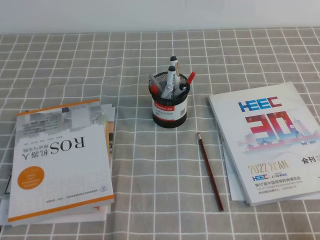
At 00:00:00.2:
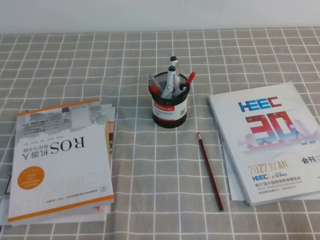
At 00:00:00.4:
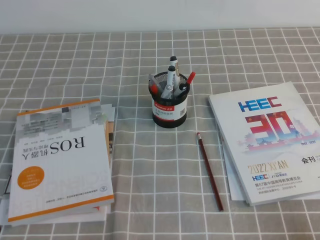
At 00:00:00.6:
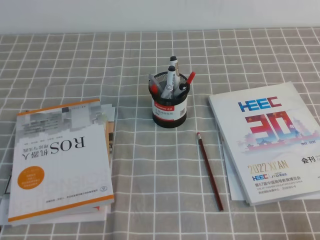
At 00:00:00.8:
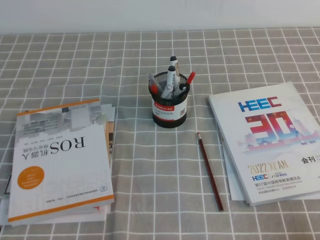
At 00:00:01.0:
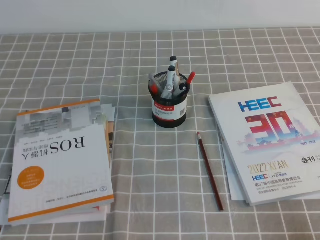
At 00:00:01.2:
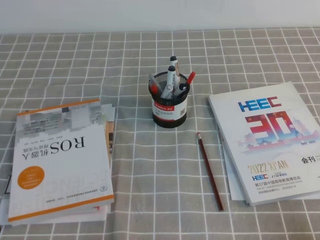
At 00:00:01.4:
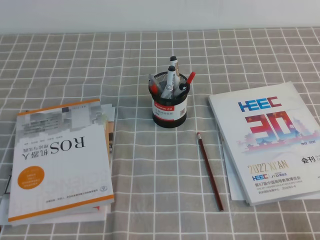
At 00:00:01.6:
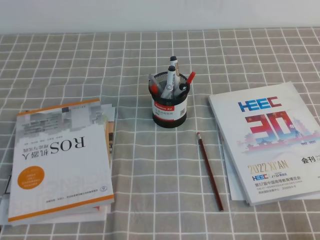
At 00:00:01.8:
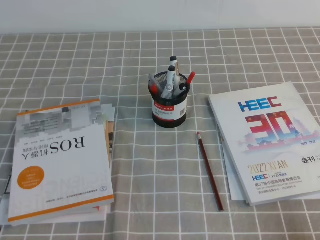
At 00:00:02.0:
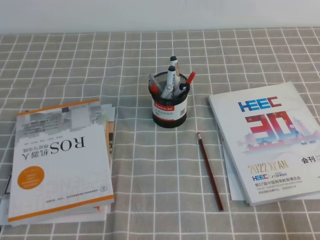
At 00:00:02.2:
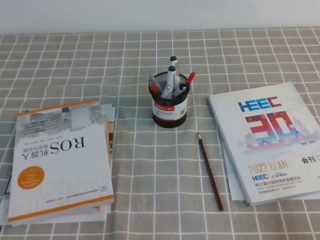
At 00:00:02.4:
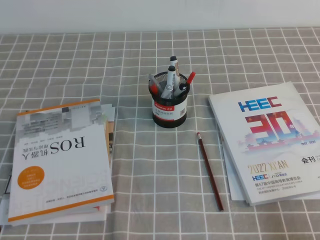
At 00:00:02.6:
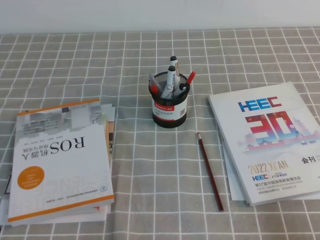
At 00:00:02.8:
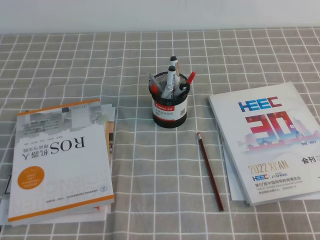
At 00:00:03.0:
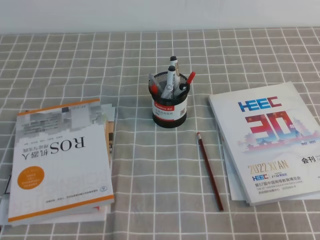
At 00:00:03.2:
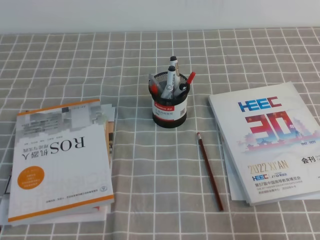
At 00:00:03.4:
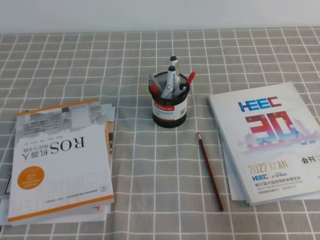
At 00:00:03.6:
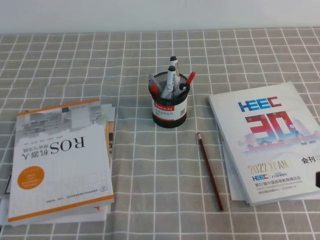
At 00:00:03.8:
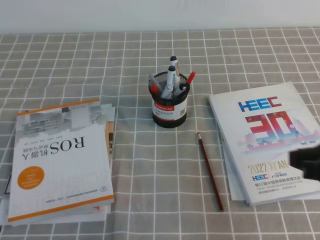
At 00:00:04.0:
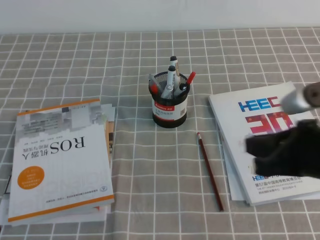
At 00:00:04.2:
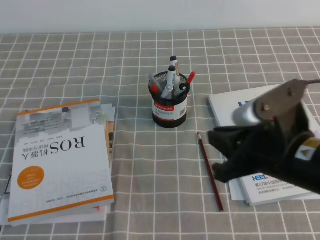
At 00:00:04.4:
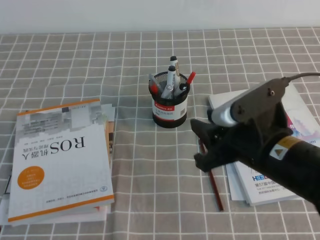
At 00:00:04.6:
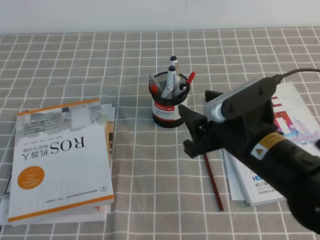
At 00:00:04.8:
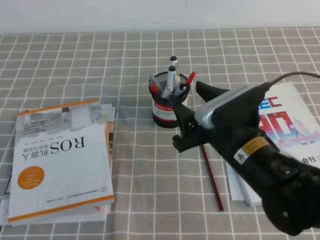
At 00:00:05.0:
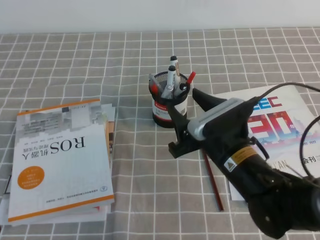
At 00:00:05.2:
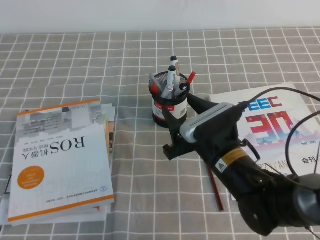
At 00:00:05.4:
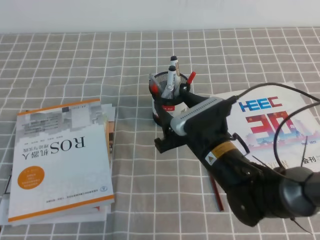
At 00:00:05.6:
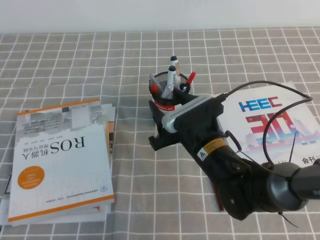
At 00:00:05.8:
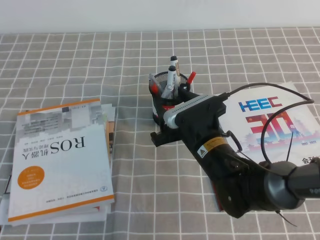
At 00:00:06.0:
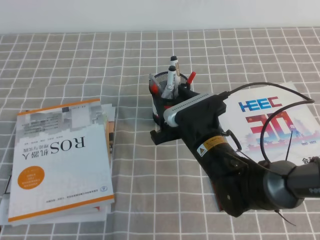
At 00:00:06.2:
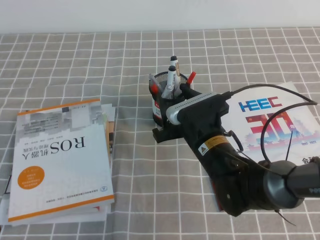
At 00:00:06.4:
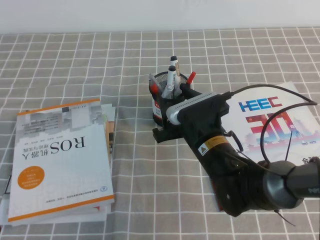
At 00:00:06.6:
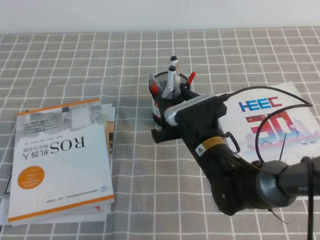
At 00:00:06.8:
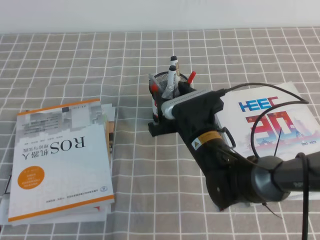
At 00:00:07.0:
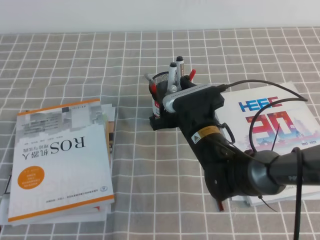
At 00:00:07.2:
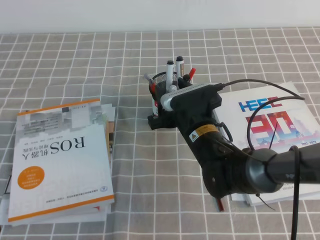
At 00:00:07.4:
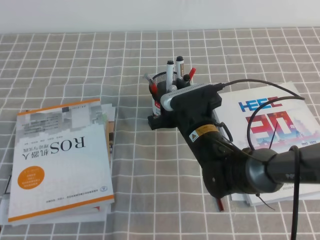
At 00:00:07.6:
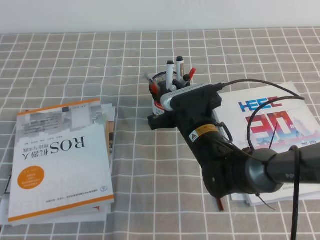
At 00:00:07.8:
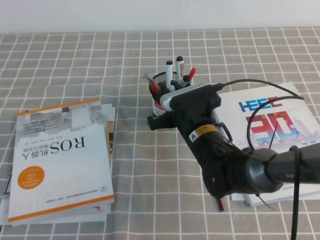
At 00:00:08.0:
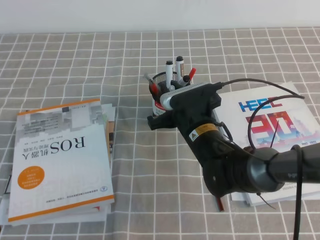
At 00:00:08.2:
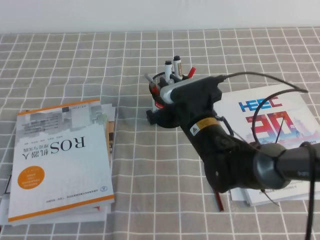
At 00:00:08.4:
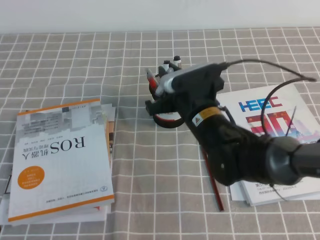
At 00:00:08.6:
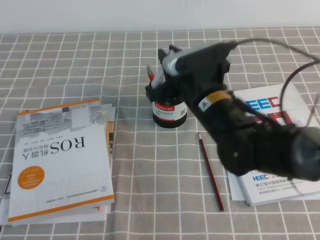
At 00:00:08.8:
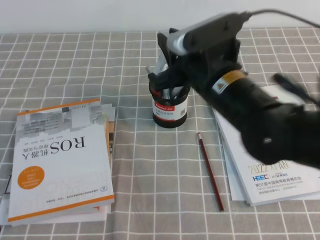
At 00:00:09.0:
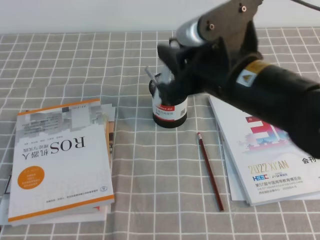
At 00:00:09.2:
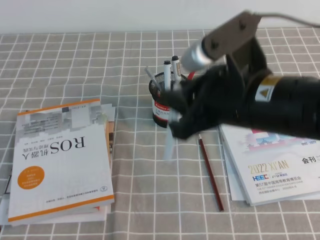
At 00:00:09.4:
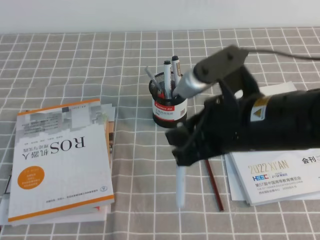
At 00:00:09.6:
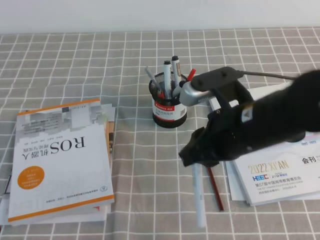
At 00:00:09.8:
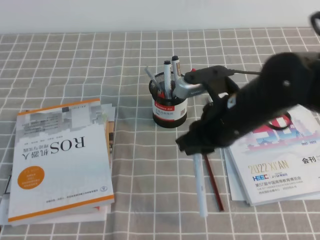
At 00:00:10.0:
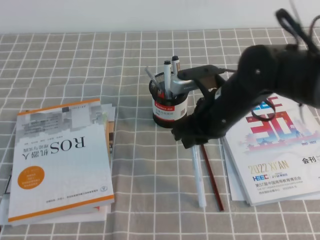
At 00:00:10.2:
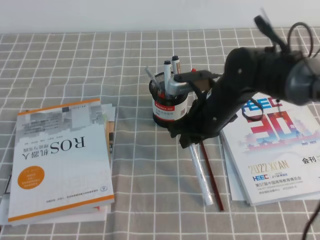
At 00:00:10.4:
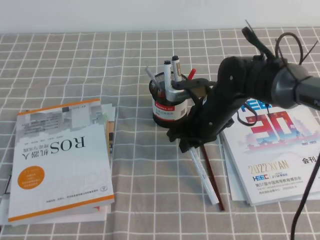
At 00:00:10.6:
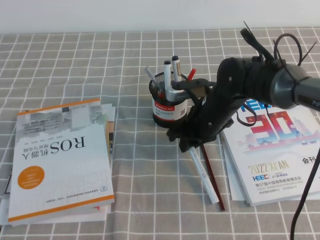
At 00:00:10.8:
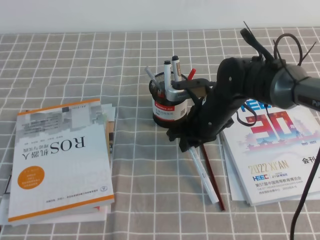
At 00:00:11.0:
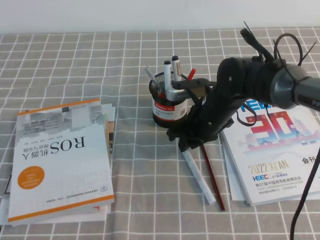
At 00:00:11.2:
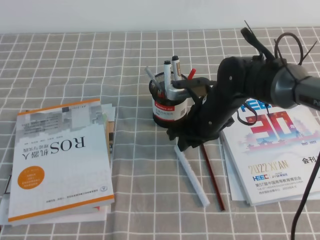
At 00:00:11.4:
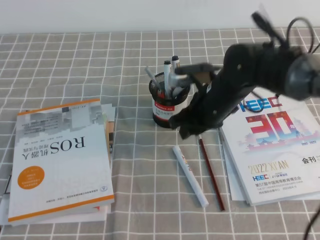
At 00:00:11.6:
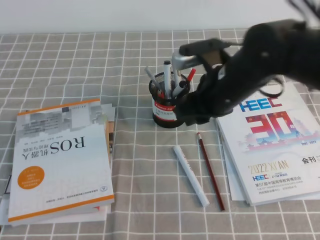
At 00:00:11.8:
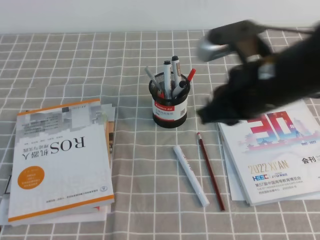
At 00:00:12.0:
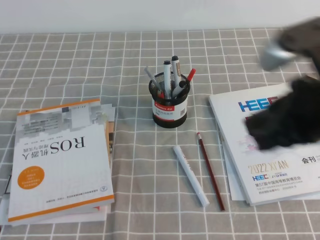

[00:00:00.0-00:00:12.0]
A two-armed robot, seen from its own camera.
00:00:00.0 to 00:00:01.6: Both grippers stay about where they are.
00:00:03.0 to 00:00:04.4: The right gripper shifts roughly 20 cm to the left and forward, and opens.
00:00:04.4 to 00:00:06.0: The right gripper travels downward, forward and to the left by about 15 cm, and opens up.
00:00:06.0 to 00:00:07.6: The right gripper closes up.
00:00:07.6 to 00:00:09.0: The right gripper moves upward and backward, approximately 20 cm.
00:00:09.0 to 00:00:10.4: The right gripper shifts roughly 15 cm downward and forward.
00:00:10.4 to 00:00:12.0: The right gripper is displaced upward, backward and to the right by about 25 cm.

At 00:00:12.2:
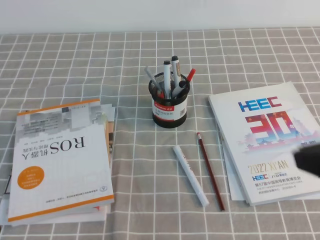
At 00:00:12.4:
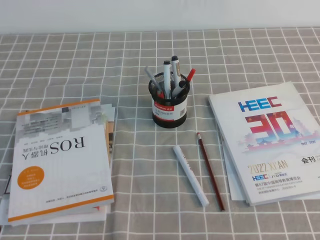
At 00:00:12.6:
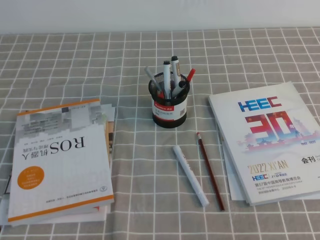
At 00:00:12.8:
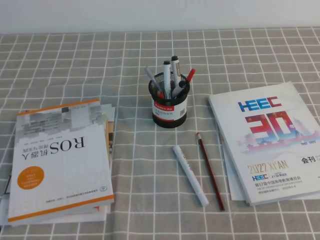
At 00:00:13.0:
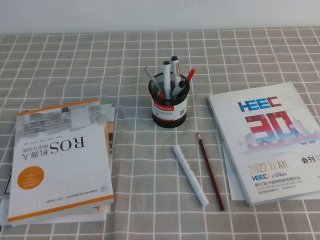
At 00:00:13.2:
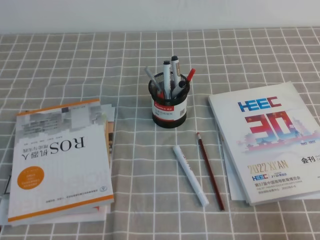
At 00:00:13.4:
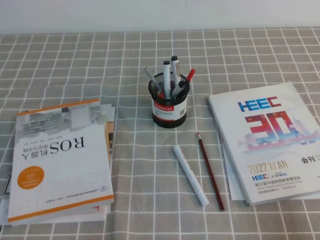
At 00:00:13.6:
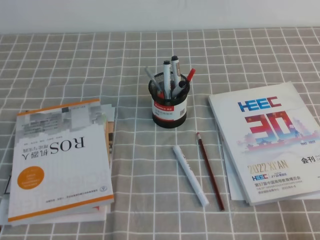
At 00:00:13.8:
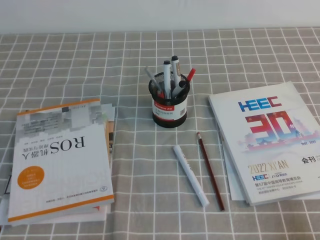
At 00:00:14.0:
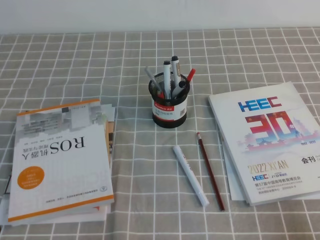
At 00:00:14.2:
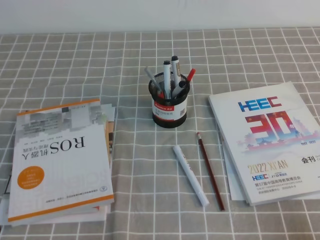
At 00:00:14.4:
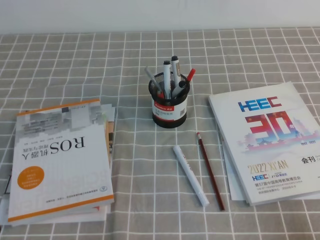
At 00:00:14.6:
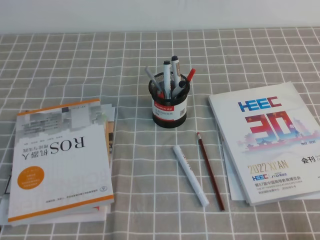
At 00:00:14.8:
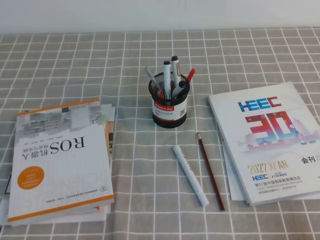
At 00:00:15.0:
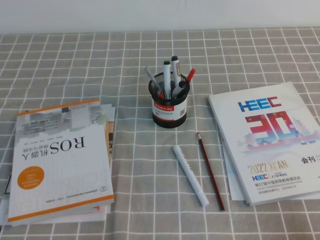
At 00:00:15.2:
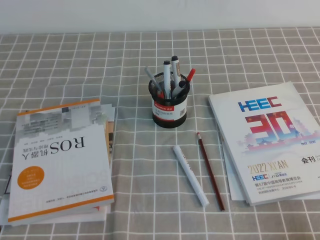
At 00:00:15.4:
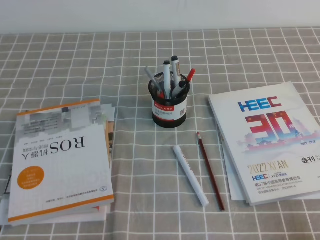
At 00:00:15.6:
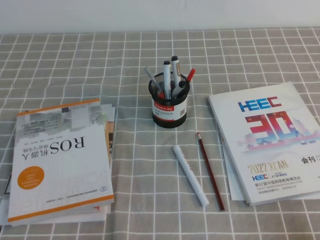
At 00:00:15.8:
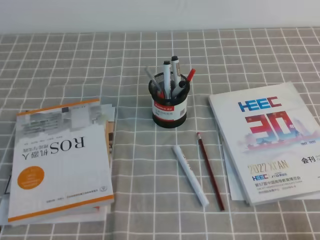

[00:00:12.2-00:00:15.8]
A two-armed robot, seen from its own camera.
Step, 00:00:12.2 to 00:00:15.8: Pick up the pen from the pen holder.
00:00:12.2 to 00:00:14.0: The right gripper heads downward, to the right and backward, covering some 25 cm.
